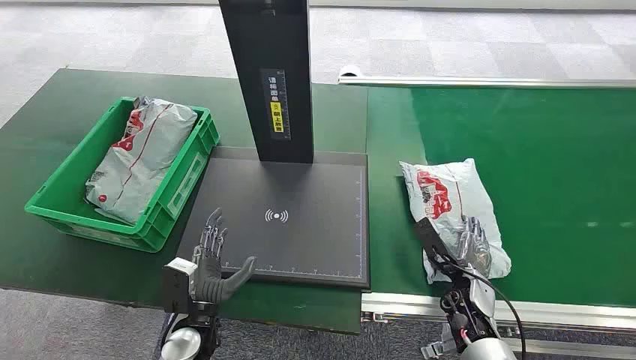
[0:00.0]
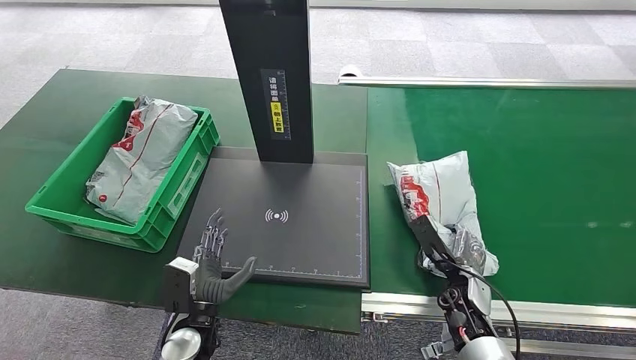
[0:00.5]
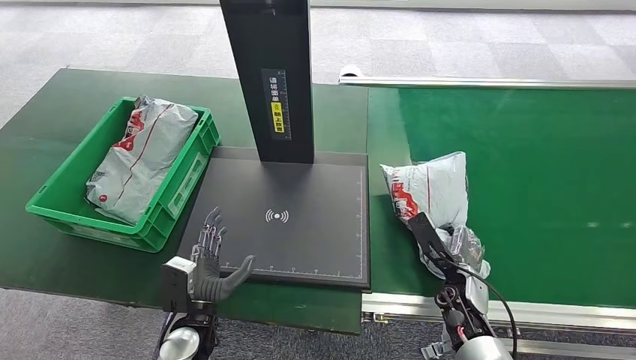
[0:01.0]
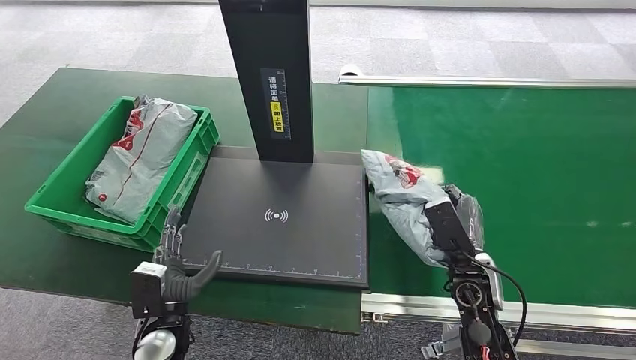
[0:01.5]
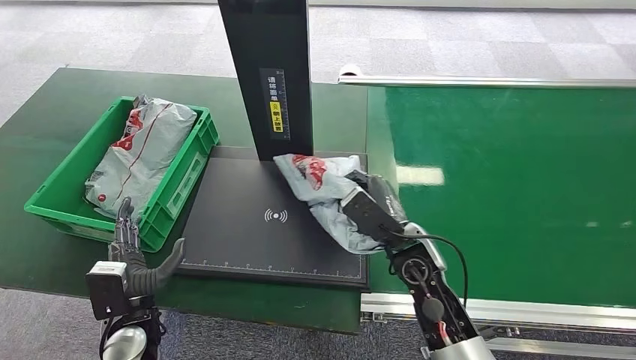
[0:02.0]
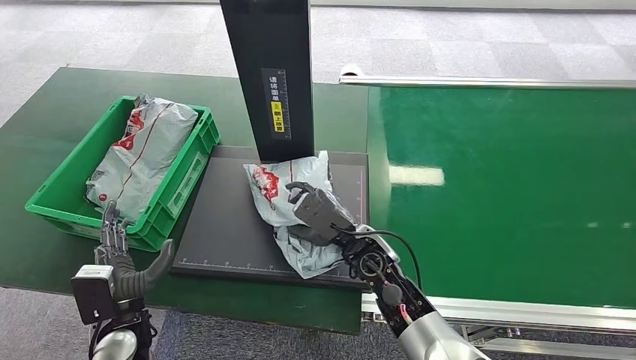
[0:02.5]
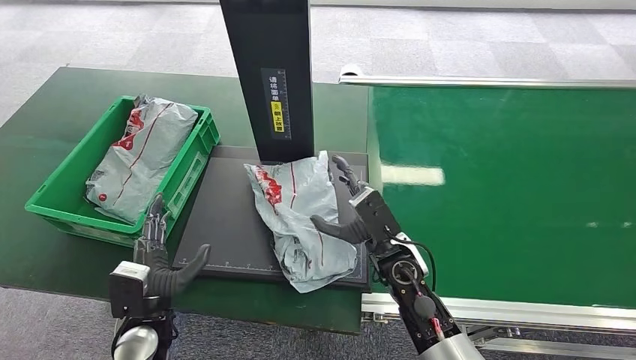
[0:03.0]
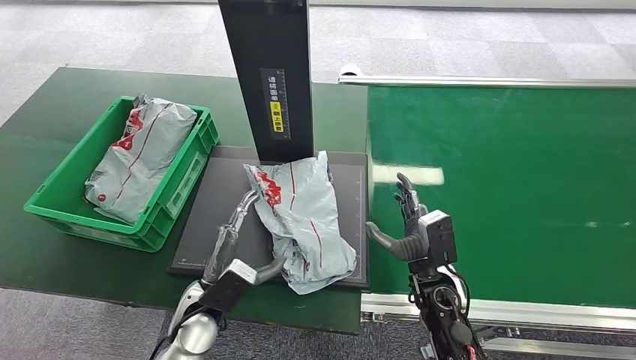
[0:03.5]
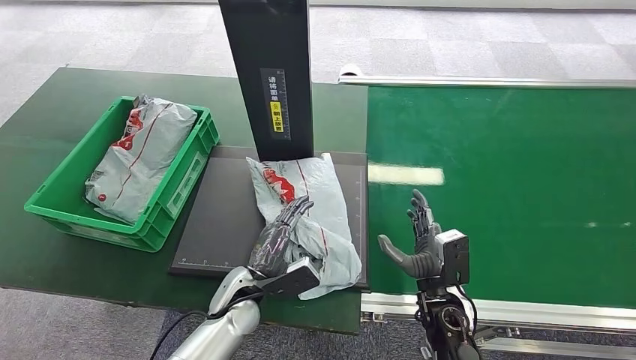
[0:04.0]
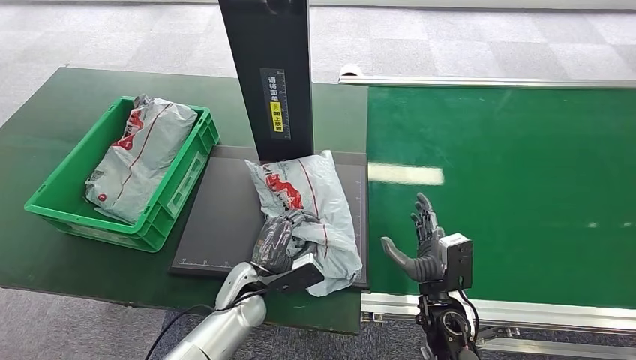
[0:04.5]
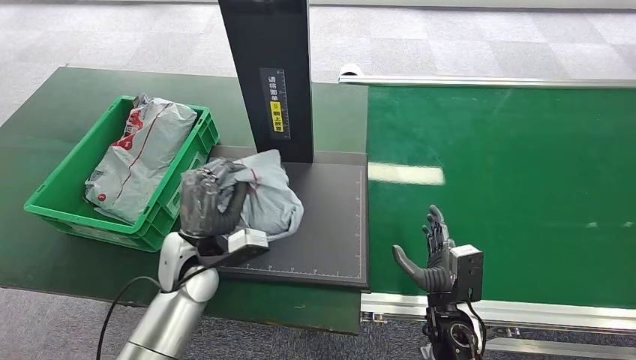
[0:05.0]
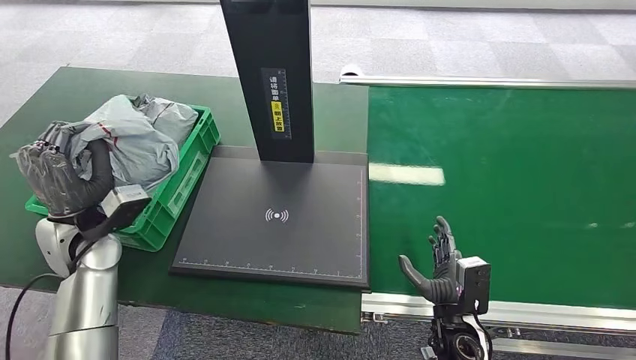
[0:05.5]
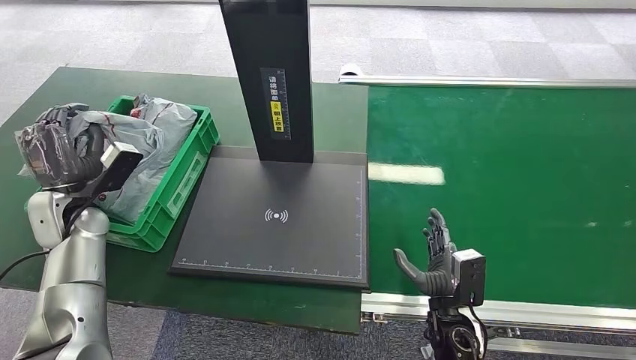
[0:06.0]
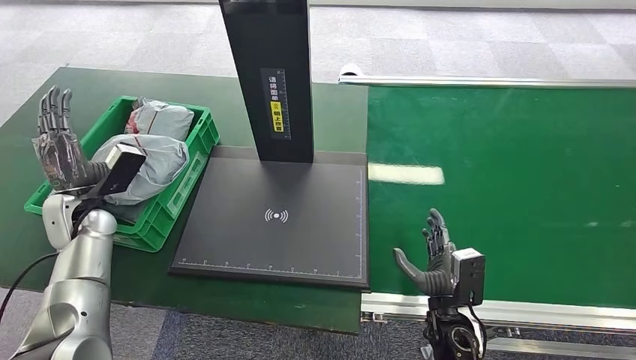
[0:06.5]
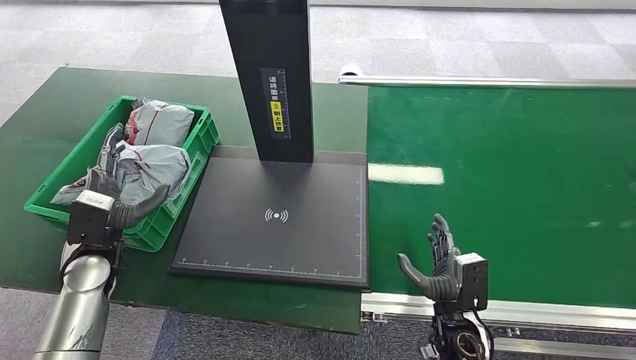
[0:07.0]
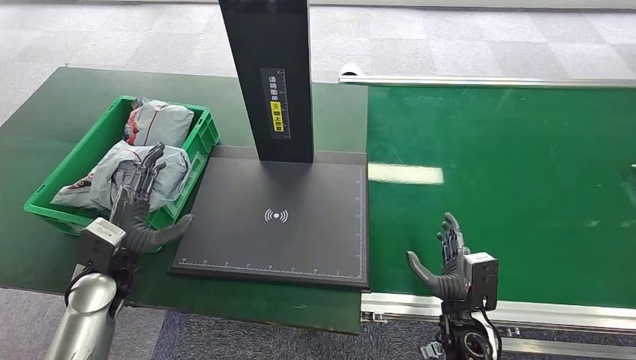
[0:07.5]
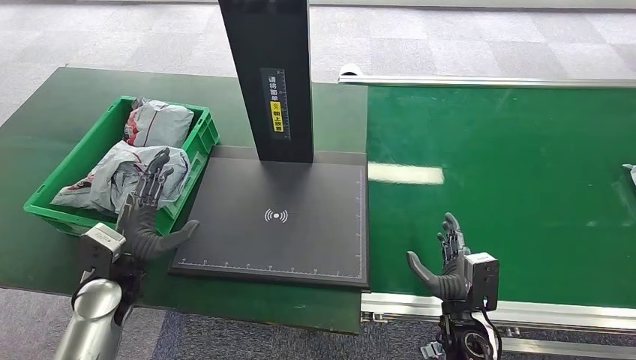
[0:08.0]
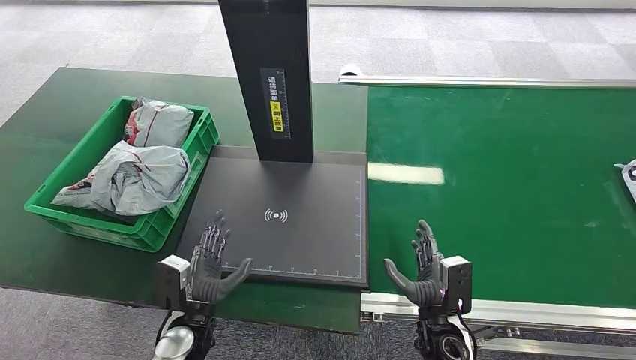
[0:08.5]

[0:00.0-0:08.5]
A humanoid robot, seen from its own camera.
Step, 0:00.0 to 0:01.0: Pick up the package from the conveyor belt.
Step, 0:02.5 to 0:03.5: Place the package onto the inbound machine.
Step, 0:04.5 to 0:05.5: Pick up the package from the inbound machine.
Step, 0:06.0 to 0:08.0: Place the package into the parcel locker.
0:02.0 to 0:04.0: The left hand goes some 15 cm to the right, while the right hand is displaced downward, to the right and backward by roughly 10 cm.
0:04.0 to 0:06.5: The left hand goes roughly 30 cm to the left and upward.
0:06.5 to 0:08.5: The left hand shifts approximately 30 cm to the right, backward and downward.
